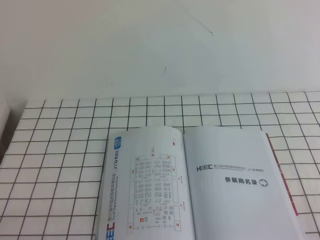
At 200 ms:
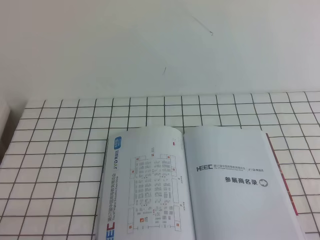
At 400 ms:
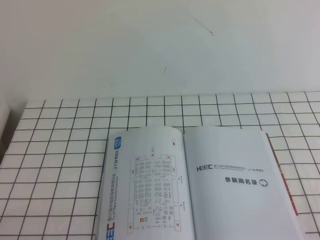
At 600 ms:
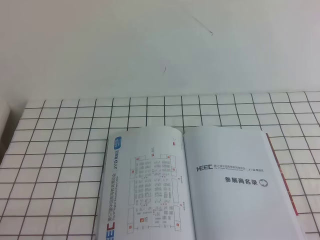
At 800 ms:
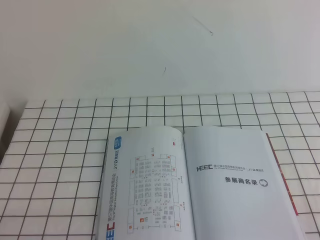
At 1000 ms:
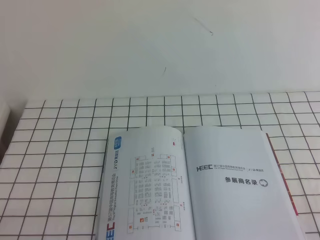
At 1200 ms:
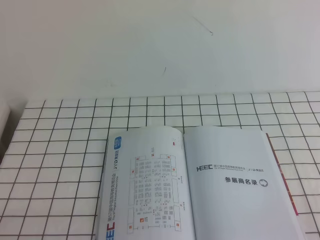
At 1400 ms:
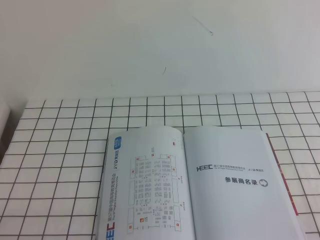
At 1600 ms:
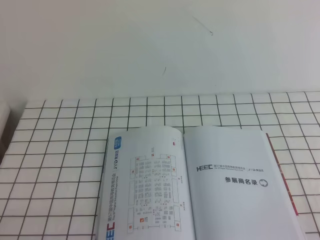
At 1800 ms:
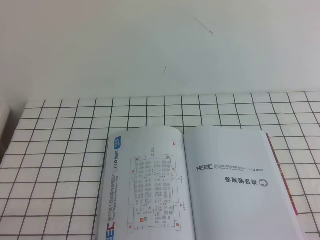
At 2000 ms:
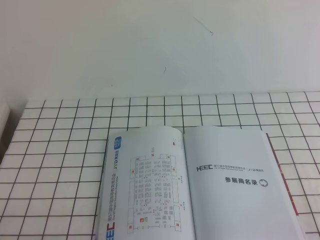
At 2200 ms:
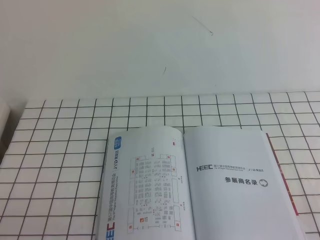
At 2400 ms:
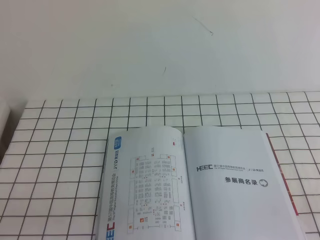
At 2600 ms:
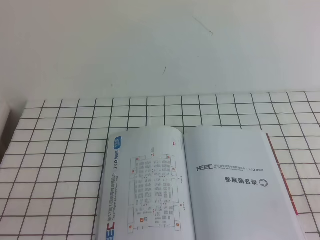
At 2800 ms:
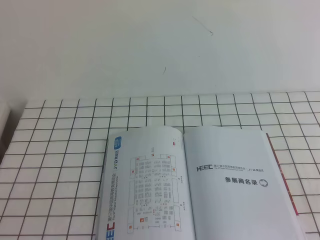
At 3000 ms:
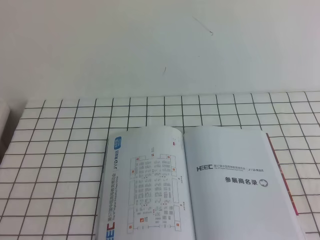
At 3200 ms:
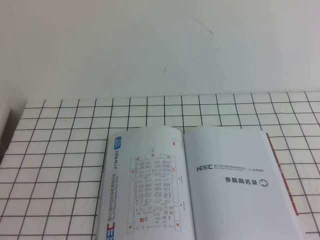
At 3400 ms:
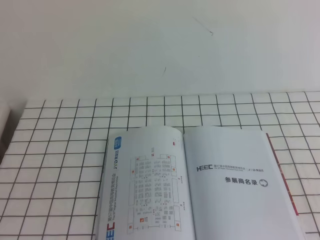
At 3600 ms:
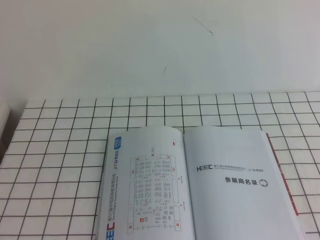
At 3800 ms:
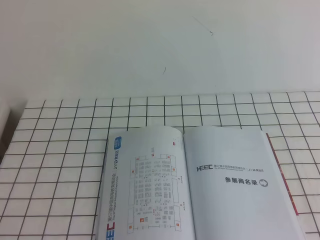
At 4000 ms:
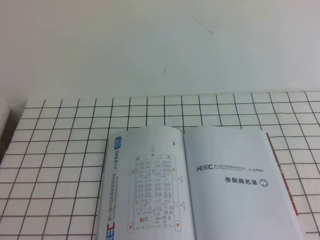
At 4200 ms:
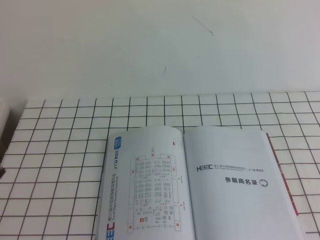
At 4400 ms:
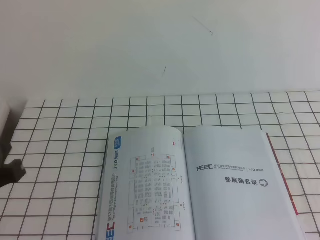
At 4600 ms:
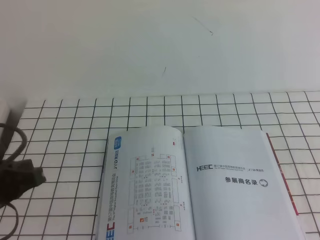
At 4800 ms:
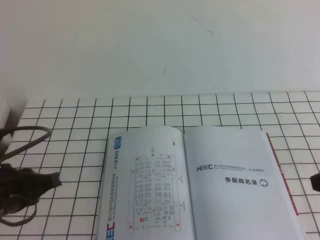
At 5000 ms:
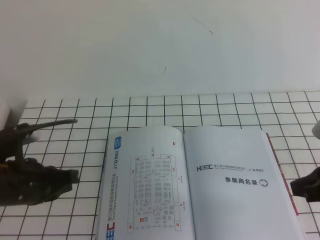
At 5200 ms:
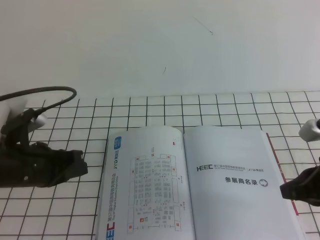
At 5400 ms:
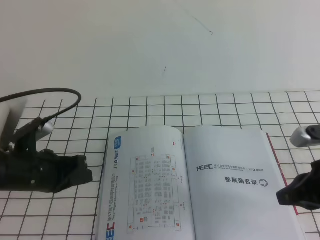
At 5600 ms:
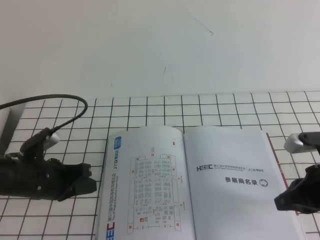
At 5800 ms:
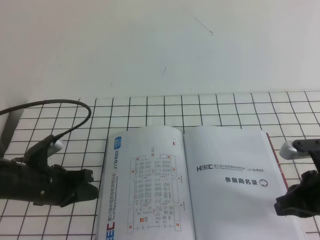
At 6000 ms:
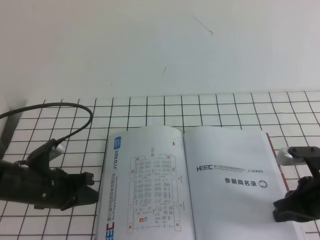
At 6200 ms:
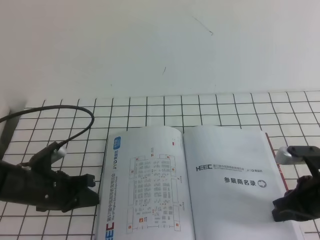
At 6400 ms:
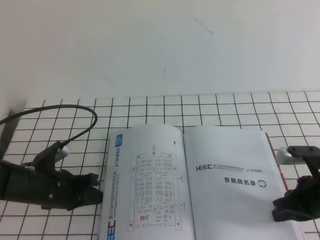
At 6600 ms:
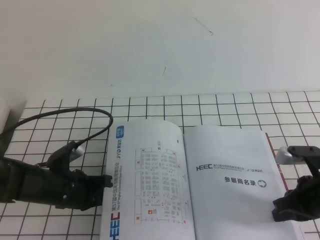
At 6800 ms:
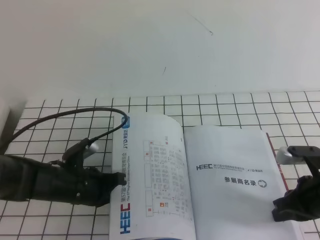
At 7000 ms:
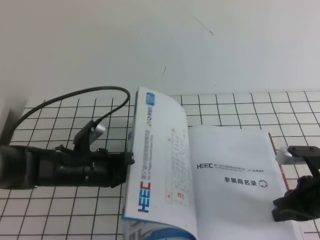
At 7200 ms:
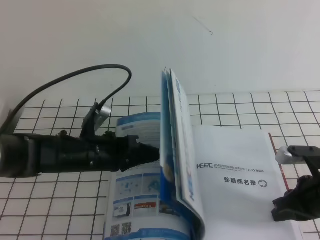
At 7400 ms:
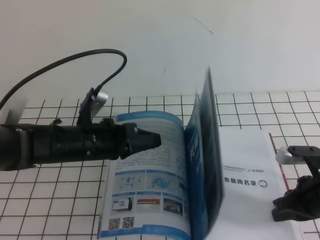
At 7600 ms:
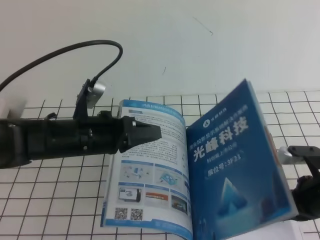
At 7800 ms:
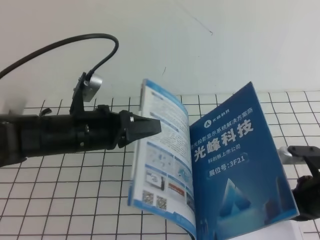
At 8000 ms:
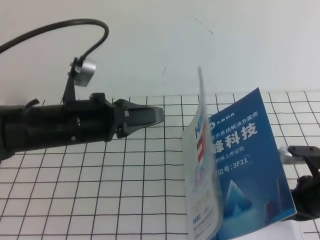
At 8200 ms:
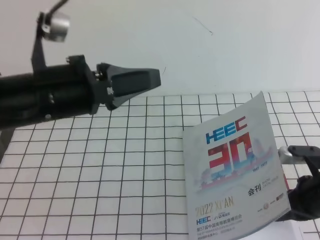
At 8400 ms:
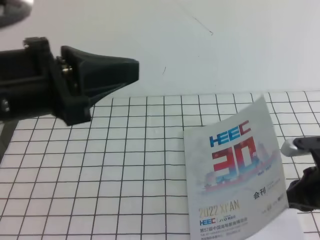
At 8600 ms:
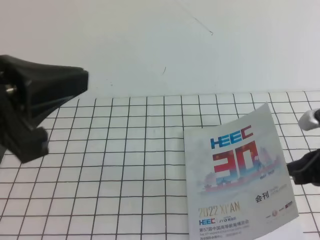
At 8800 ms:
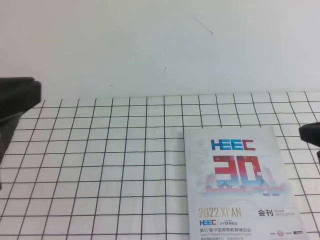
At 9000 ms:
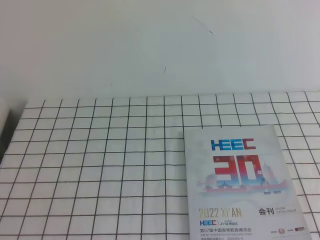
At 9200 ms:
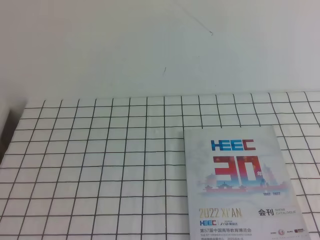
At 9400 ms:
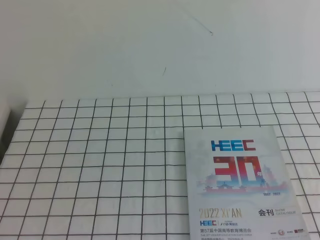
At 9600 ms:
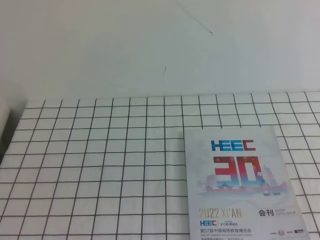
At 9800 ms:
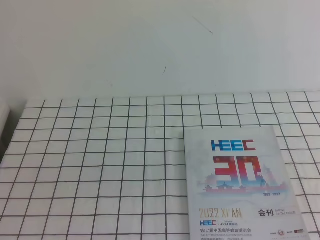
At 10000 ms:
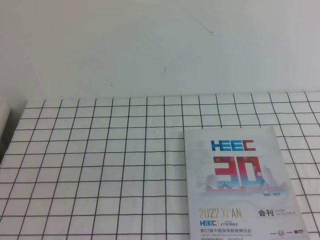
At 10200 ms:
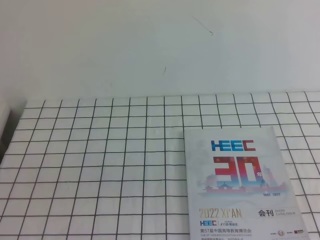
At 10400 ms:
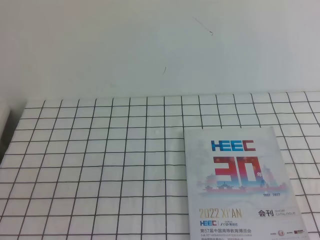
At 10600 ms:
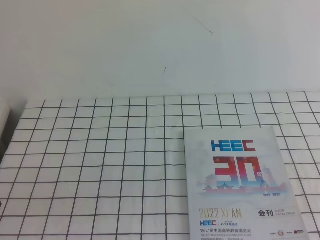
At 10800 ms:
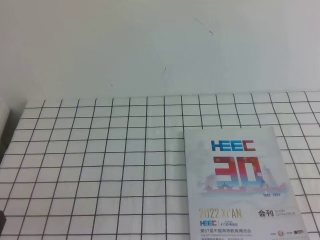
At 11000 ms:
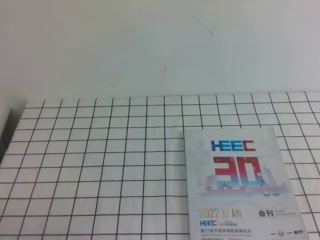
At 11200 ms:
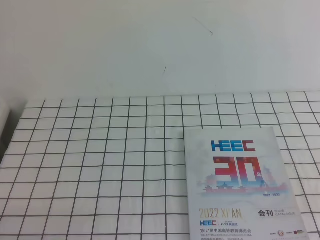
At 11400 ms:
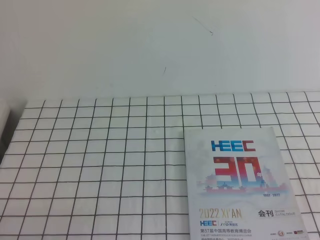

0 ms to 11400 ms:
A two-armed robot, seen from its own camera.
Task of the whole recording: on the white tablecloth, hold the book with one hand and close it with the other.
0 ms to 1400 ms: Both grippers stay about where they are.
4200 ms to 5600 ms: The two grippers go roughly 20 cm downward and forward.
5600 ms to 7200 ms: The right gripper goes some 5 cm downward, while the left gripper moves to the right, about 10 cm.
7200 ms to 8600 ms: The left gripper moves upward and backward, some 30 cm; the right gripper is displaced upward by roughly 10 cm.
8600 ms to 10000 ms: The left gripper heads downward, backward and to the left, covering roughly 15 cm. Meanwhile the right gripper heads backward and upward, covering approximately 25 cm.
